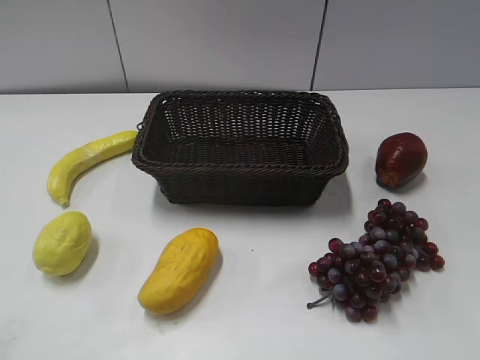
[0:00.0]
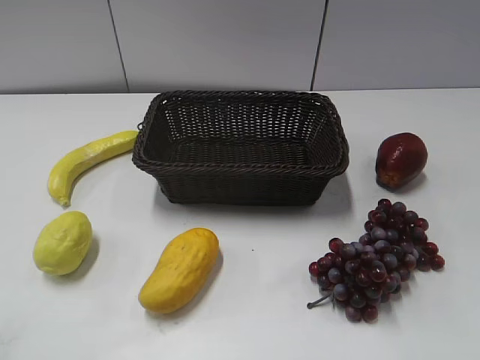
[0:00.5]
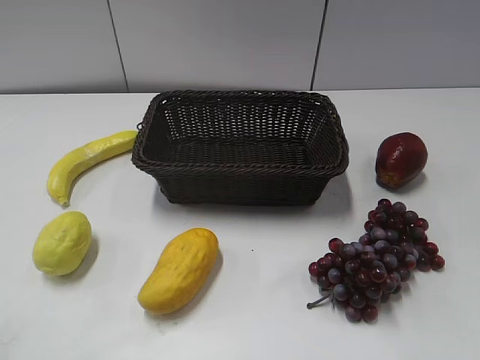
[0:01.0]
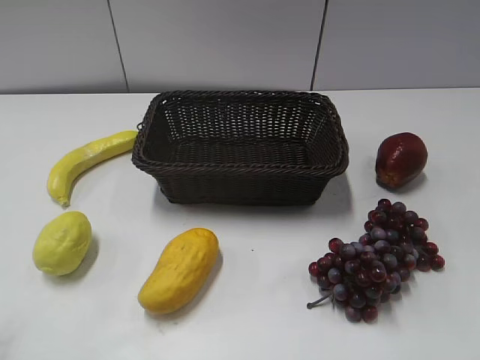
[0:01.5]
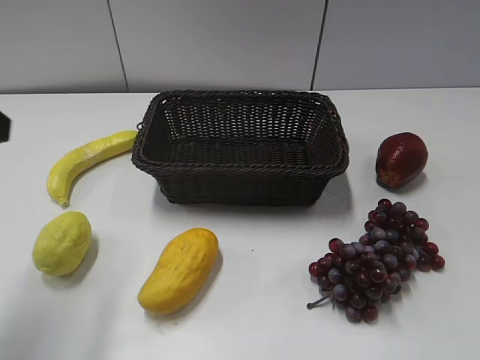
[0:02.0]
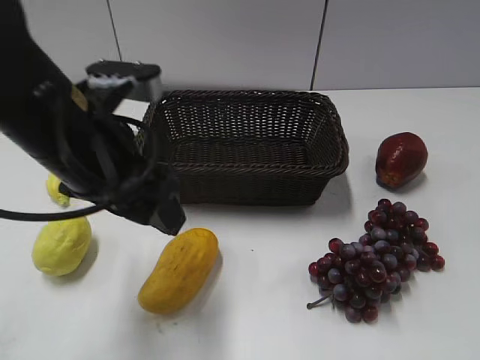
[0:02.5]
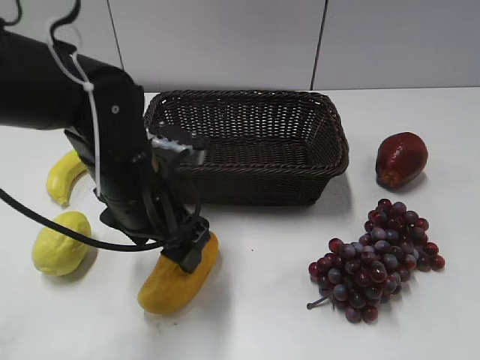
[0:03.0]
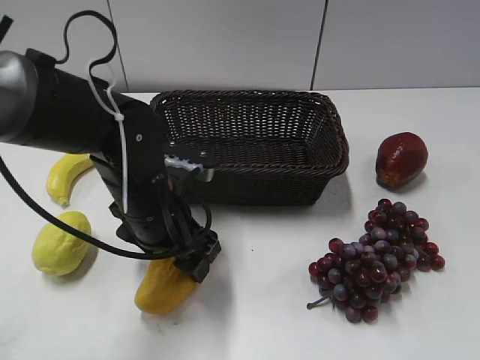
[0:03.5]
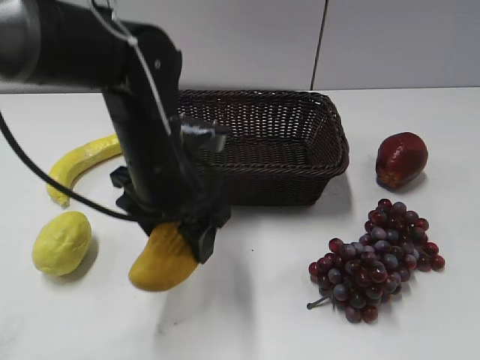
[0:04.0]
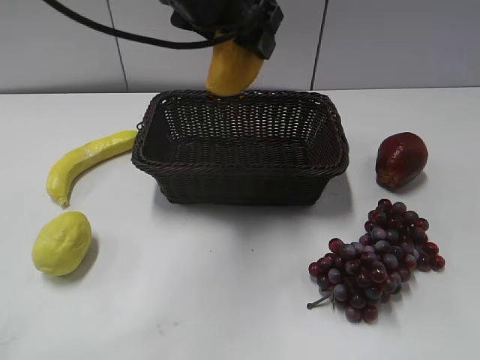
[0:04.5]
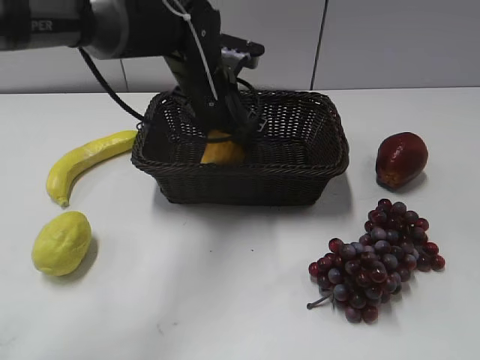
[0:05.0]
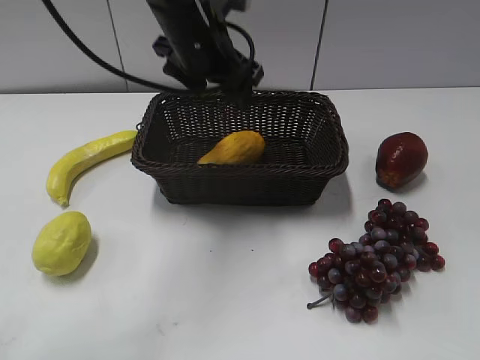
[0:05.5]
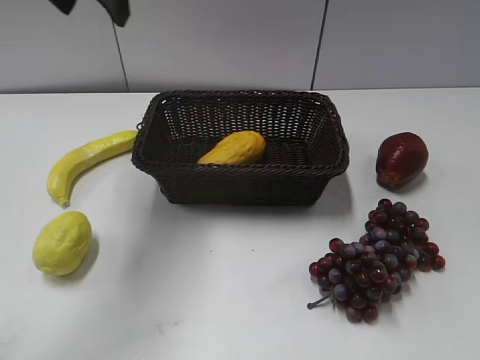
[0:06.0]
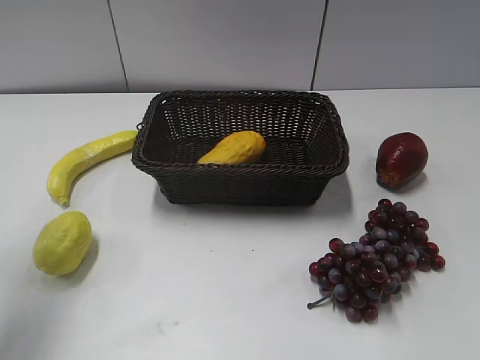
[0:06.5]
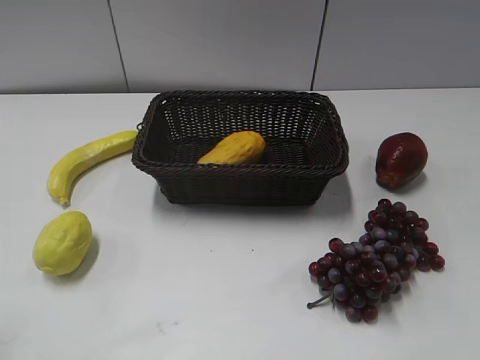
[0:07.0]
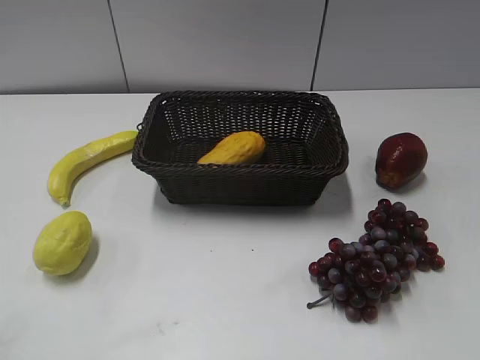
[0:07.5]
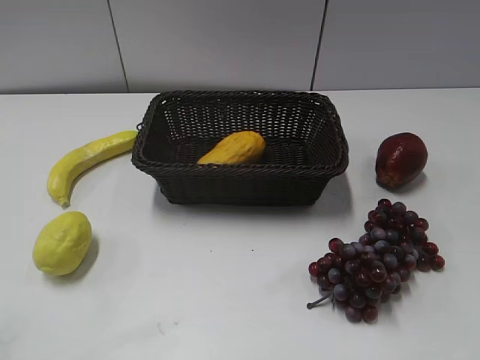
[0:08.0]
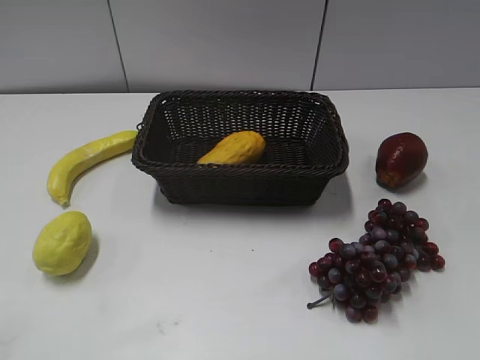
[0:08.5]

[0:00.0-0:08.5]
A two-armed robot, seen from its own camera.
Step, 0:02.0 to 0:03.5: Grasp the mango with left gripper.
Step, 0:04.0 to 0:05.0: Place the mango in the basket with left gripper.
0:02.0 to 0:04.0: The left gripper goes roughly 25 cm to the right and downward.
0:04.0 to 0:06.5: The left gripper travels to the left and upward by some 25 cm.
0:06.5 to 0:08.5: The left gripper heads backward, covering some 25 cm.
